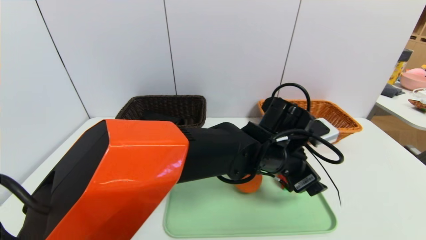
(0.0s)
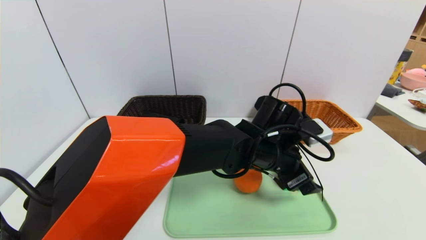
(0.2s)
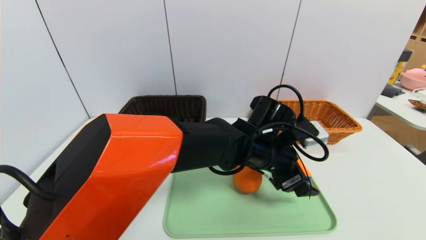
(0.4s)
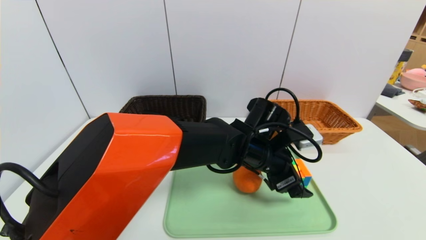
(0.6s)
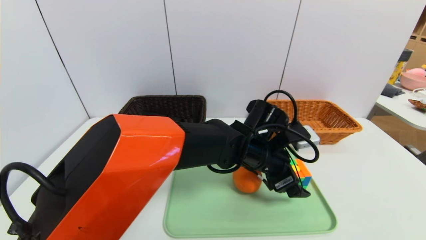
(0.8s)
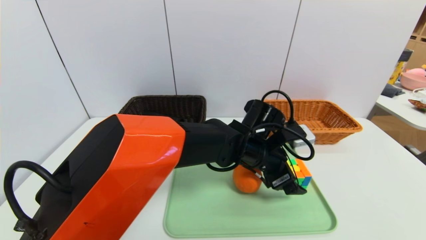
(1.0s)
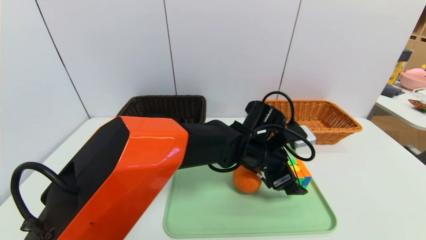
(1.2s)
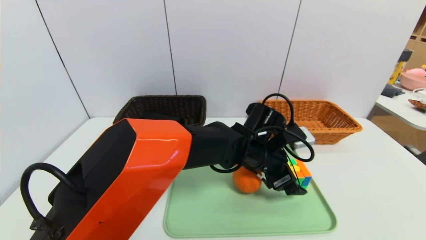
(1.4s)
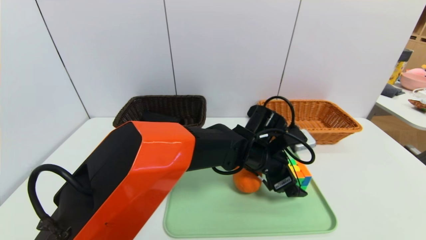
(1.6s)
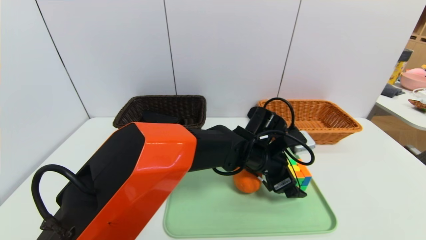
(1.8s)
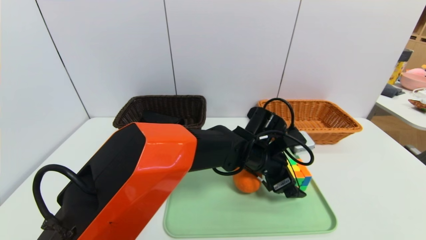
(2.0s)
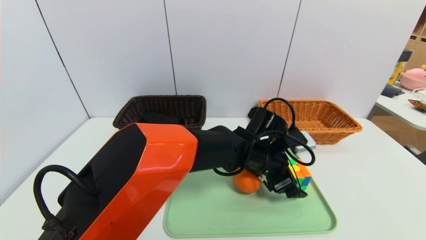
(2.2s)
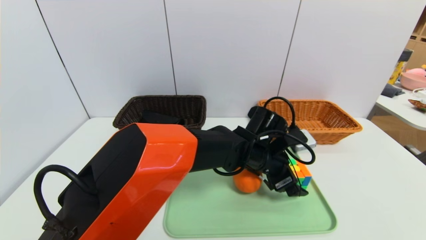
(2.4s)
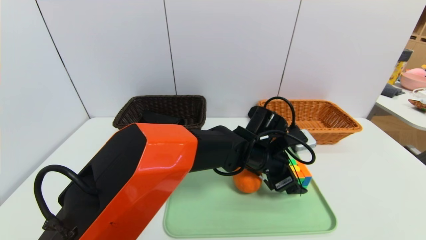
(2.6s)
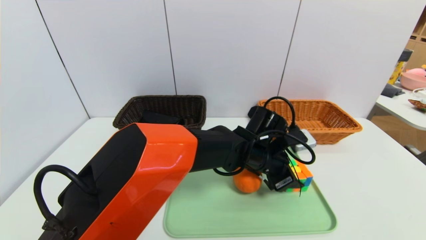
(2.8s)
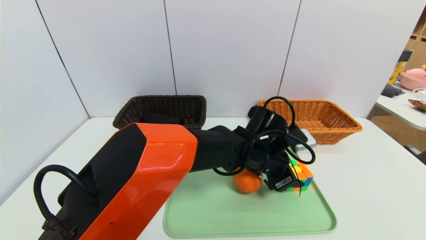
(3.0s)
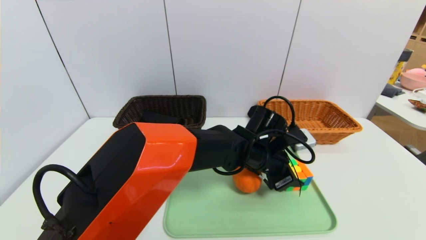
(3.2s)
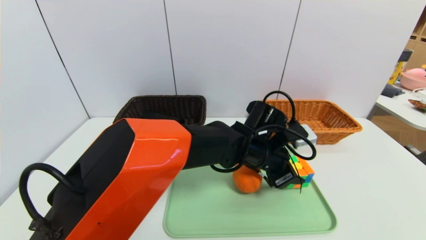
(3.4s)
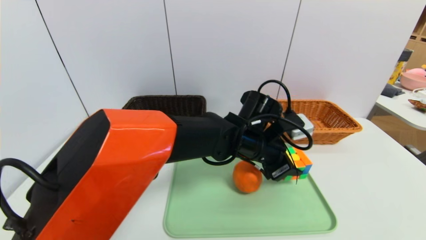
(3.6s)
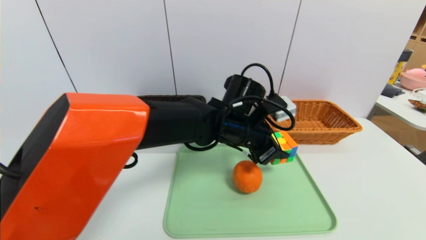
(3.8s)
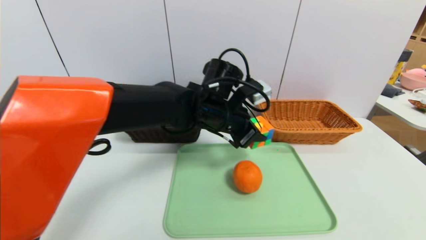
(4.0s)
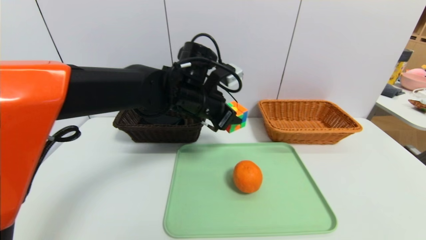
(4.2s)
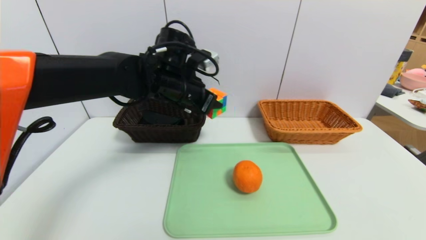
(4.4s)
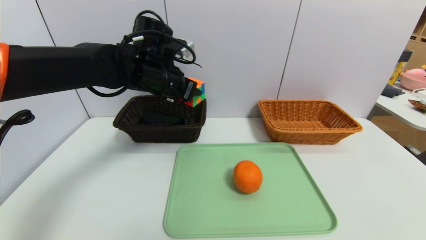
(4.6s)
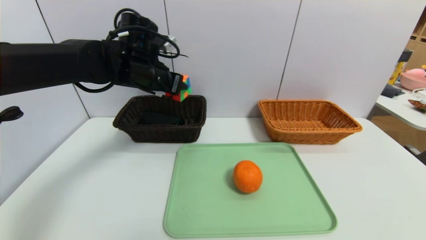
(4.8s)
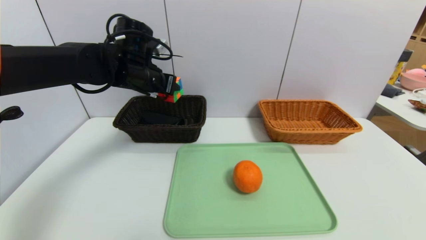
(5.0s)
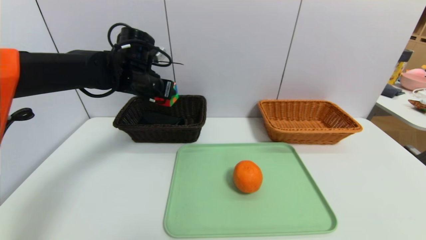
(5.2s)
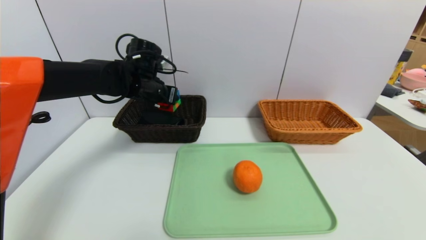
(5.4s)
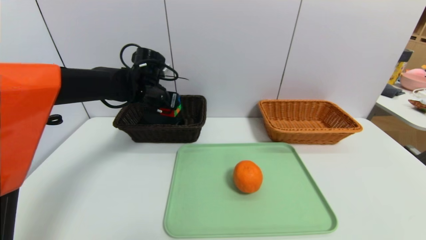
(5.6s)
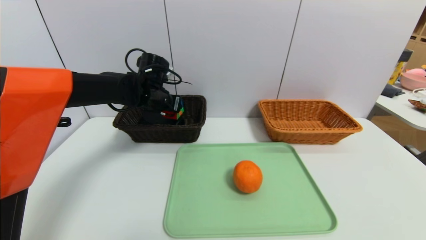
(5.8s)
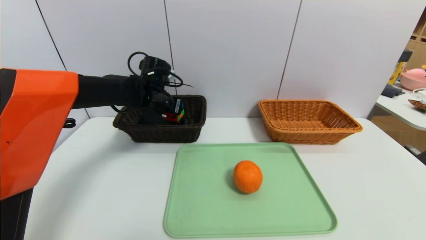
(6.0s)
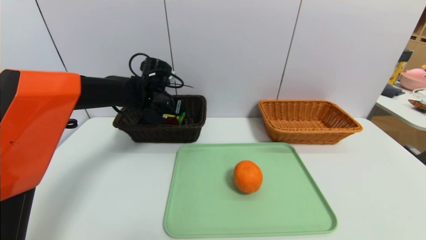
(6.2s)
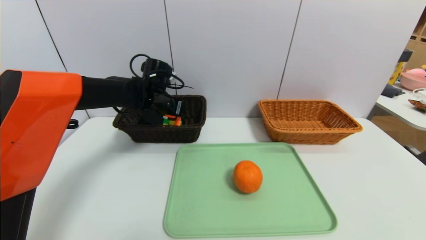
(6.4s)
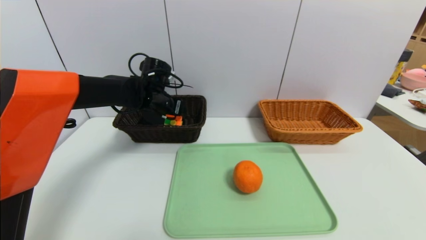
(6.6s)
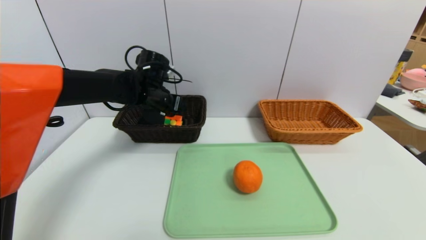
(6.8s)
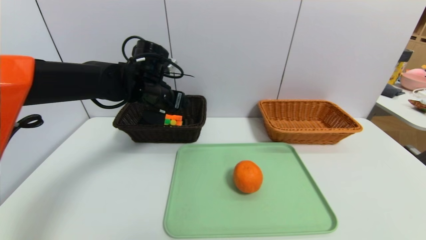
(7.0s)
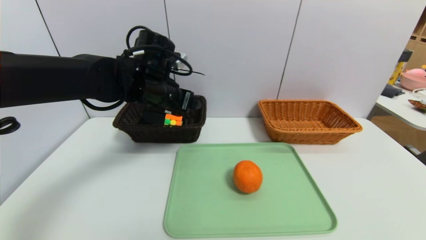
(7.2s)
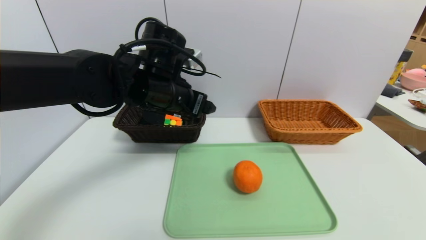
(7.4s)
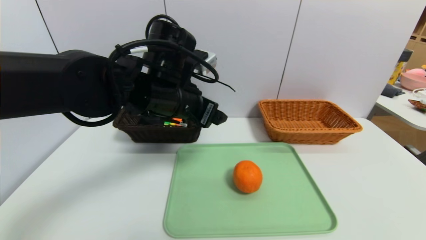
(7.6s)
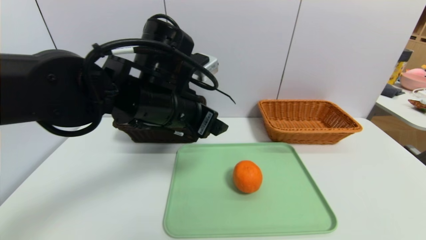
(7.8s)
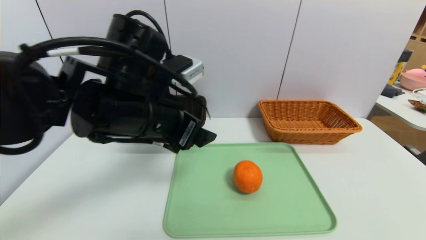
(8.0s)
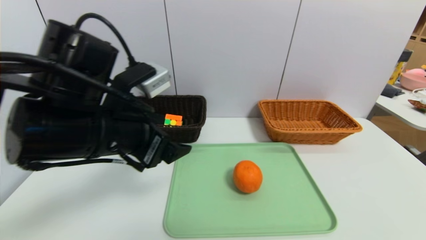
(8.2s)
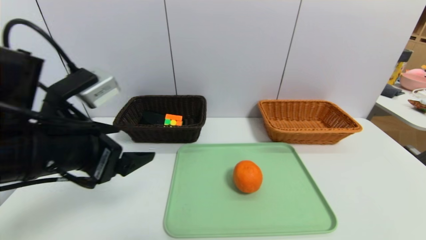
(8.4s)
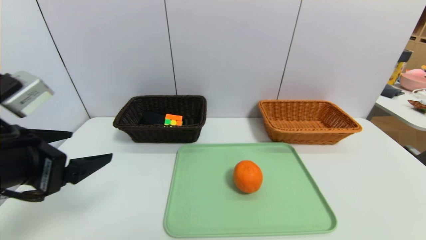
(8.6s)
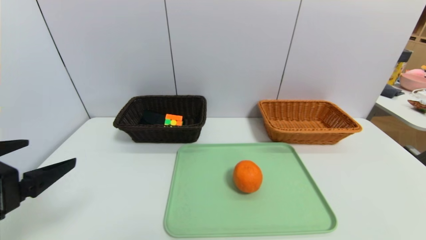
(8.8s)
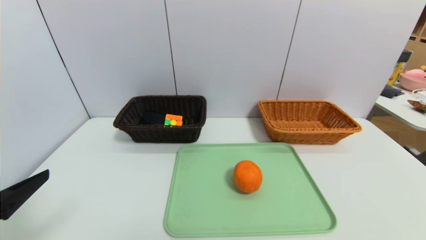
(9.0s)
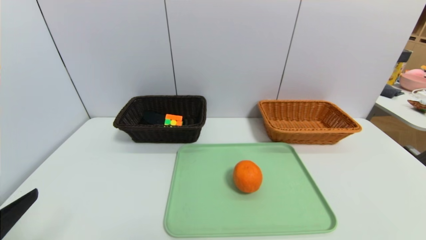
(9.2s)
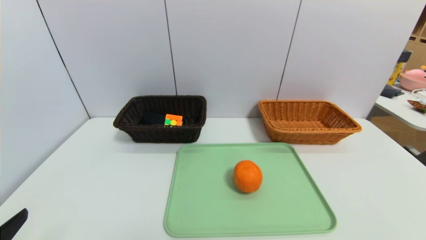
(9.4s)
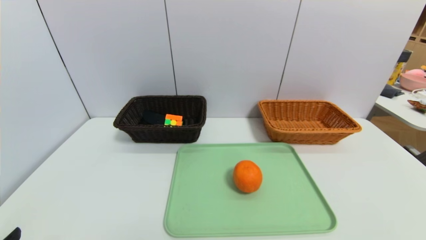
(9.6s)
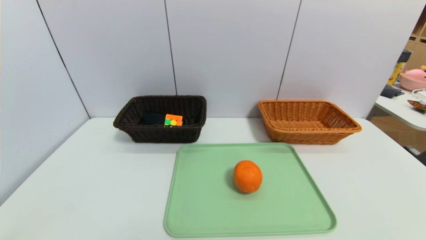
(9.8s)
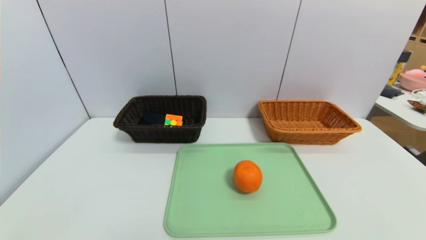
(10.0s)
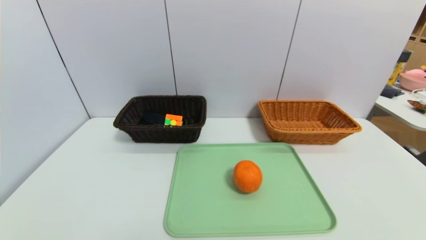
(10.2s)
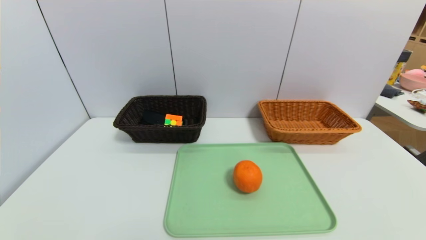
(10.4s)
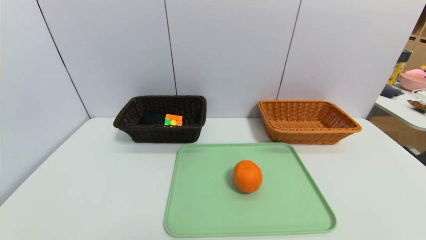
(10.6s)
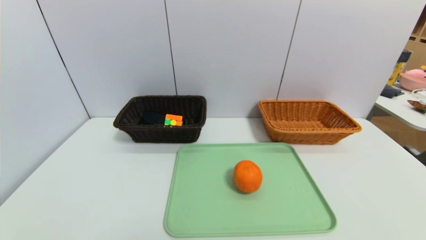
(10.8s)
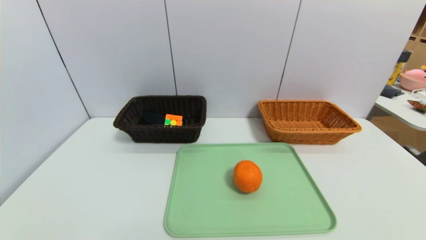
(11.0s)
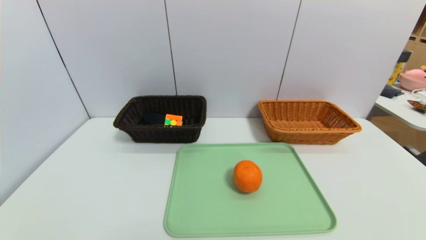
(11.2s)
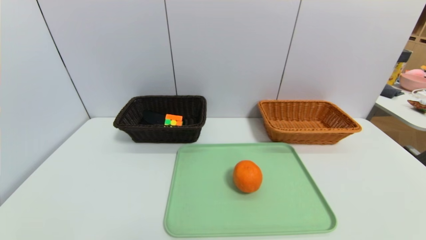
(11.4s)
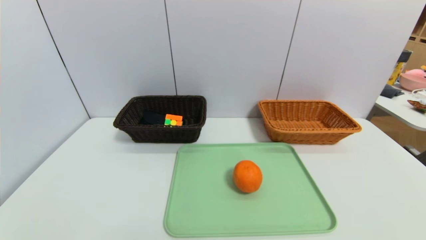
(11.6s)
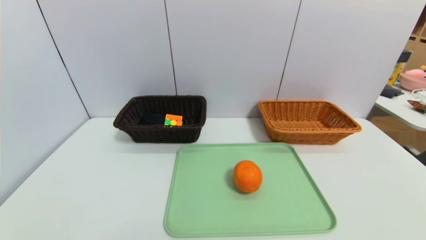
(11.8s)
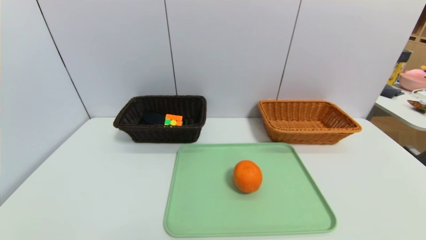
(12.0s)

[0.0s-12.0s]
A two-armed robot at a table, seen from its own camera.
Task of the whole recording: place the food in the right basket with the right gripper, and place the non food items in the left basket with the left gripper.
Step, 0.0s to 6.8s: Grasp the rubiks cube and put it in the left basket.
0.0s to 1.6s: The left gripper moves roughly 5 cm.
1.6s to 3.0s: The left gripper closes.
3.0s to 4.4s: The left gripper travels to the left and upward by roughly 25 cm.
4.4s to 6.0s: The left gripper goes about 10 cm forward, downward and to the left.
6.0s to 7.6s: The left gripper moves backward, to the right and upward, about 20 cm, and opens up.
7.6s to 9.0s: The left gripper goes roughly 30 cm to the left and backward.
9.0s to 10.4s: The left gripper shifts about 15 cm downward and backward.

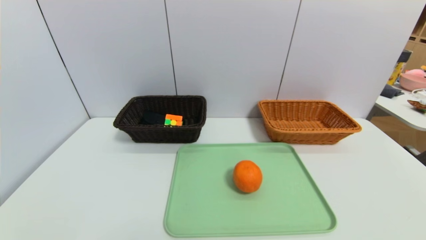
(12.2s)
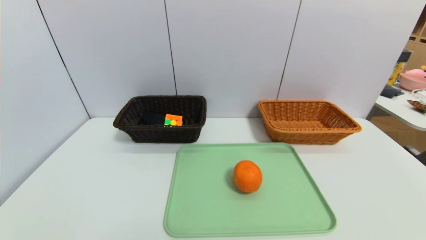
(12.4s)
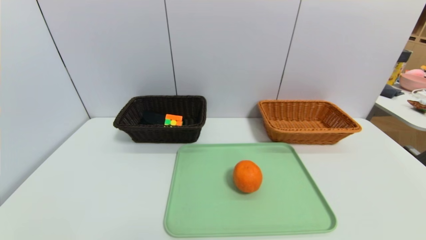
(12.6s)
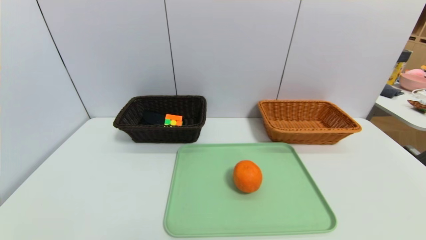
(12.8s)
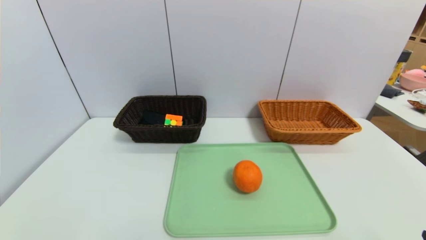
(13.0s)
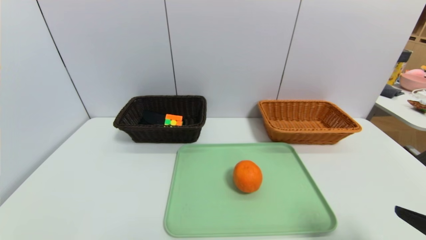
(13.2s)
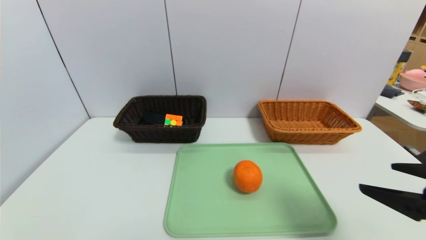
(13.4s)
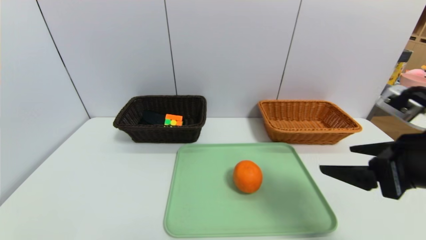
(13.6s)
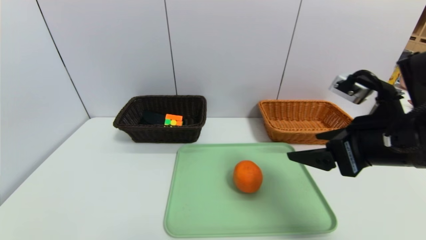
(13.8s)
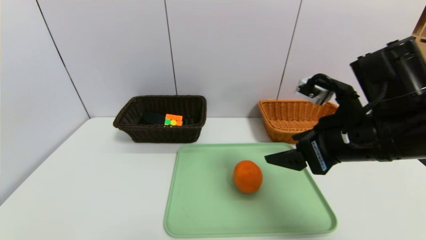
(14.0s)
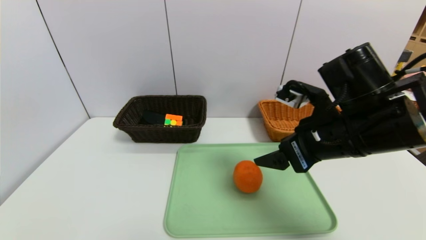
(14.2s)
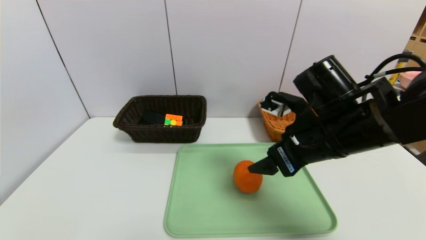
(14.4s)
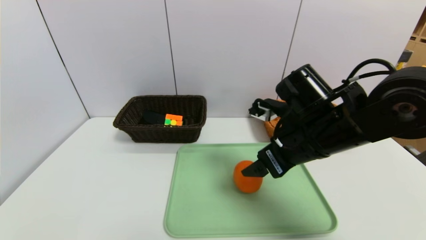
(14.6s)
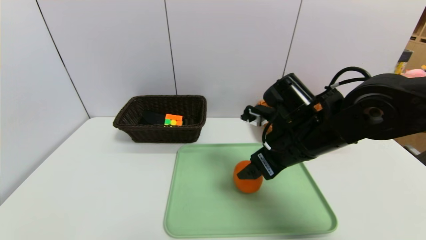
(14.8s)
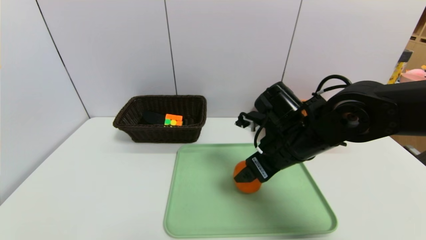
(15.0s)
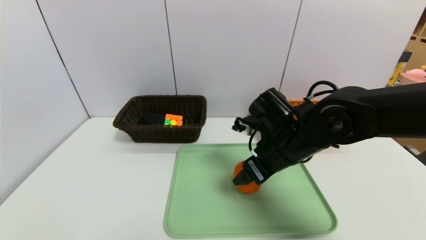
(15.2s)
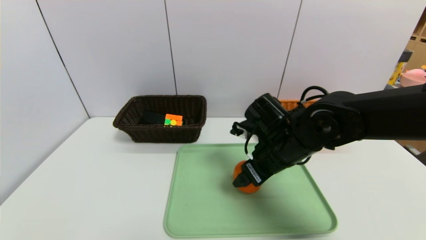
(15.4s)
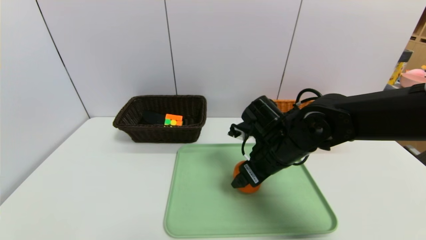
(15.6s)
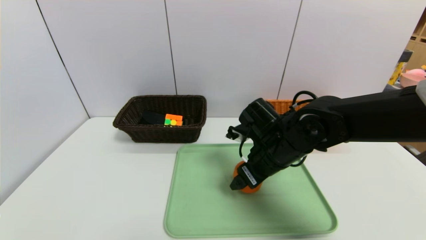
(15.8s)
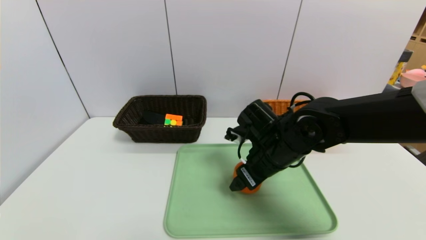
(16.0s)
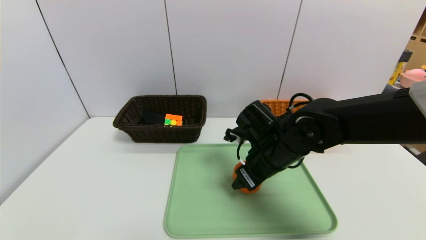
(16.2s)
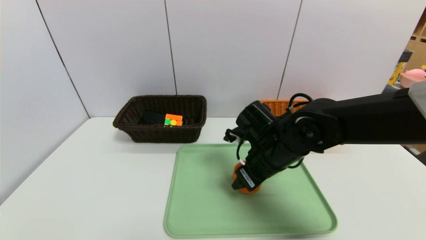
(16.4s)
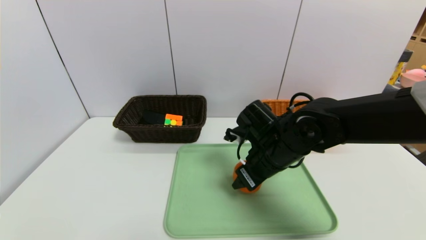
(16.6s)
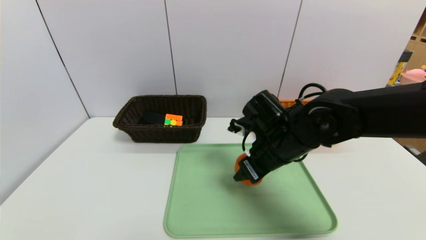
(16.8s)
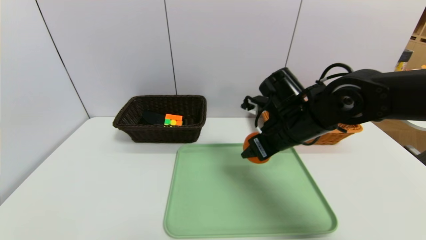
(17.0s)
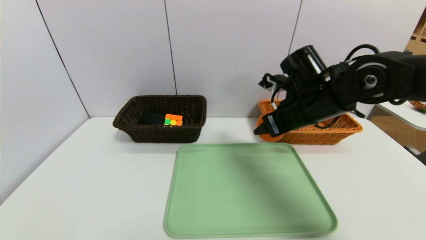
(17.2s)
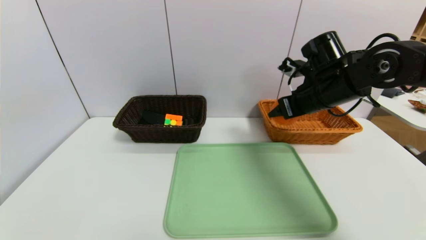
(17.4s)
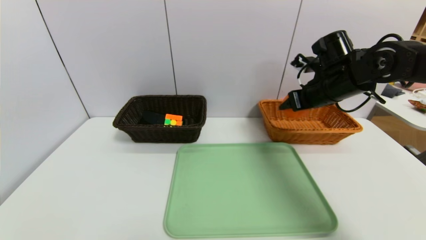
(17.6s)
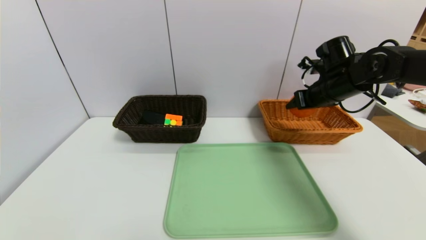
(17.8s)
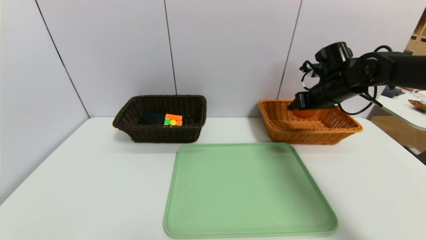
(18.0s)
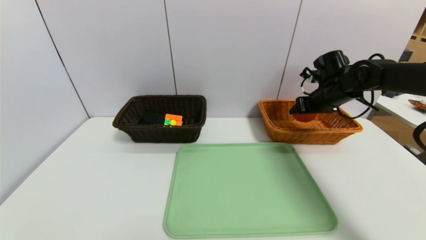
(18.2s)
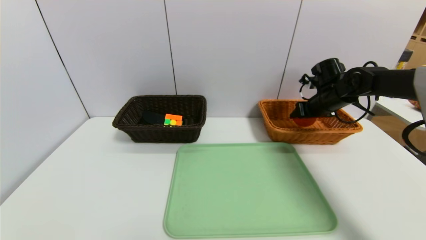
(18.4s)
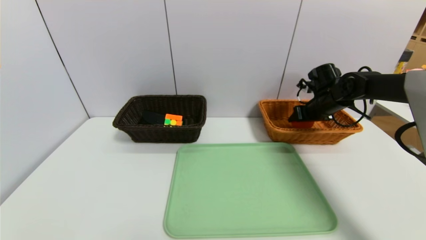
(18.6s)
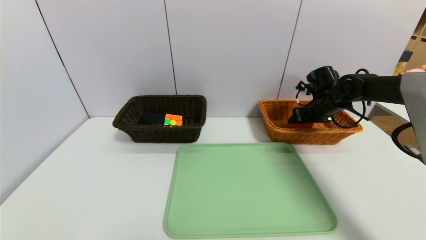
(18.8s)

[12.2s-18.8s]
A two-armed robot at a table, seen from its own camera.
Task of the whole recording: place the food in the right basket with the right gripper, and place the non food items in the left basket with the left gripper.
12.2s to 13.8s: The right gripper moves forward, upward and to the left, some 30 cm.
13.8s to 15.4s: The right gripper moves to the left, forward and downward, some 15 cm.
15.4s to 17.2s: The right gripper is displaced upward and to the right by approximately 10 cm, and closes its fingers.
17.2s to 18.8s: The right gripper heads forward, to the right and downward, covering approximately 20 cm.
